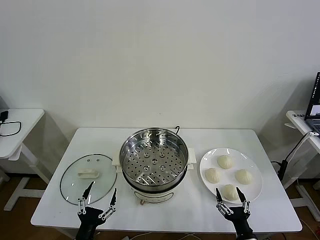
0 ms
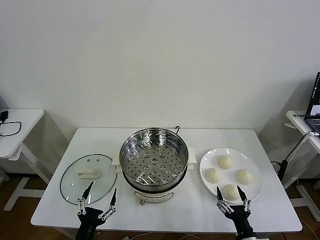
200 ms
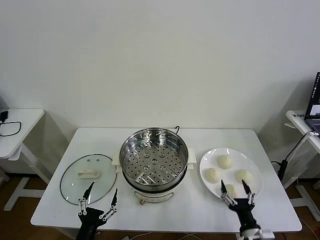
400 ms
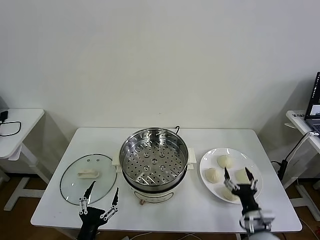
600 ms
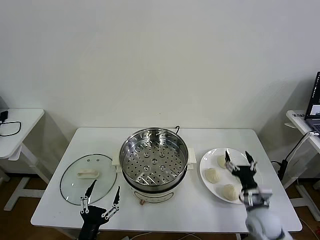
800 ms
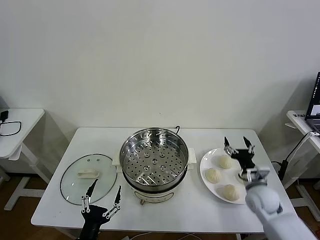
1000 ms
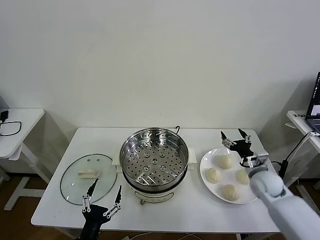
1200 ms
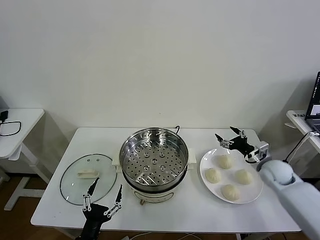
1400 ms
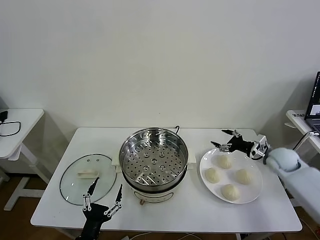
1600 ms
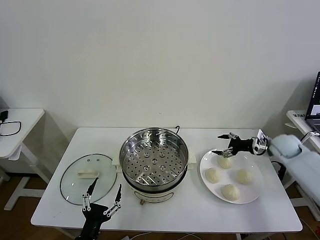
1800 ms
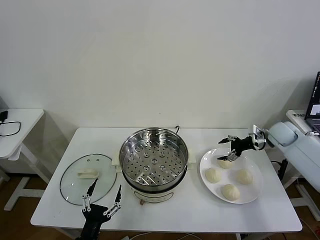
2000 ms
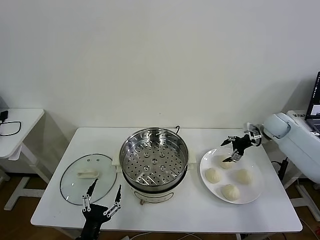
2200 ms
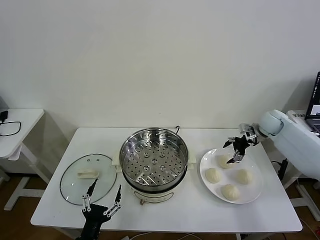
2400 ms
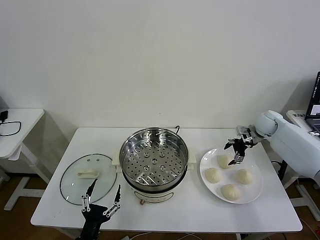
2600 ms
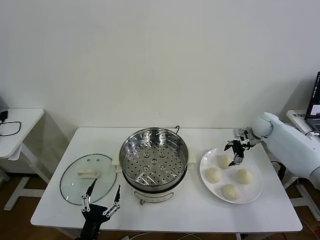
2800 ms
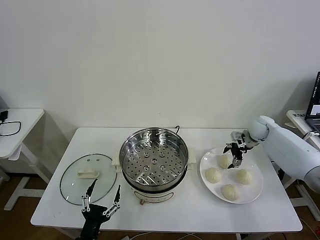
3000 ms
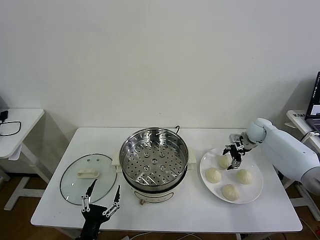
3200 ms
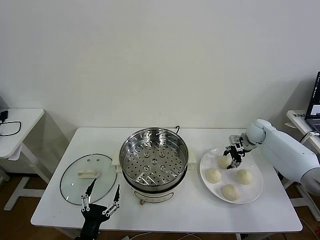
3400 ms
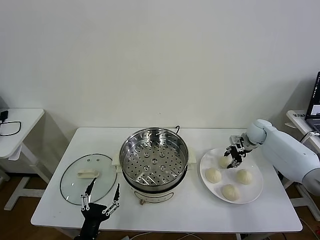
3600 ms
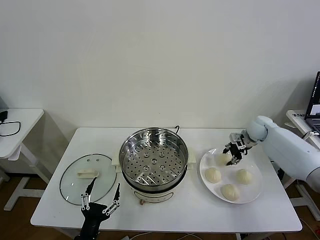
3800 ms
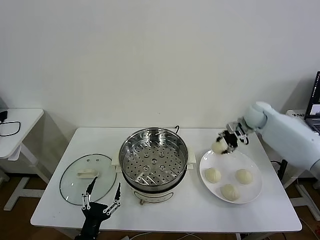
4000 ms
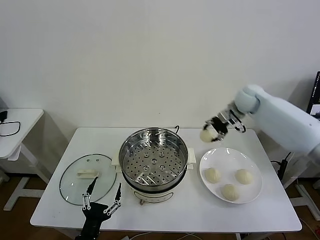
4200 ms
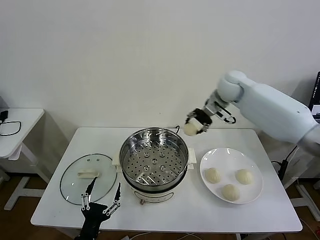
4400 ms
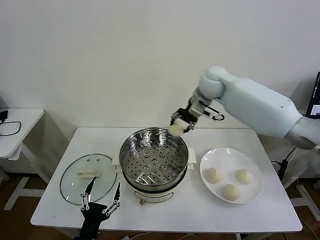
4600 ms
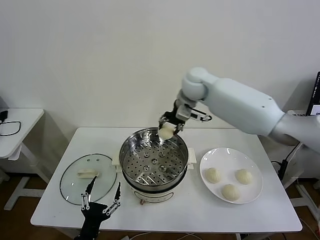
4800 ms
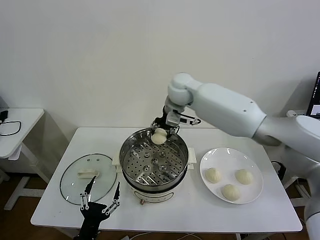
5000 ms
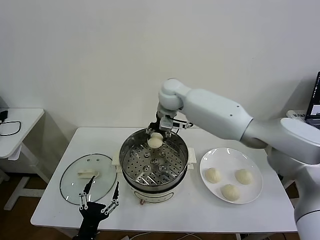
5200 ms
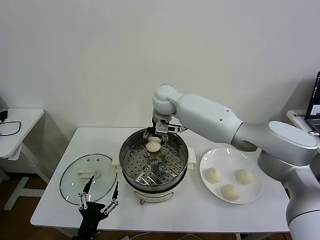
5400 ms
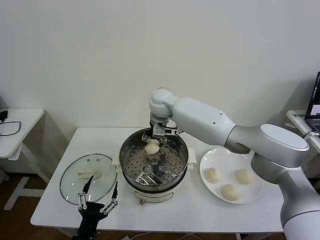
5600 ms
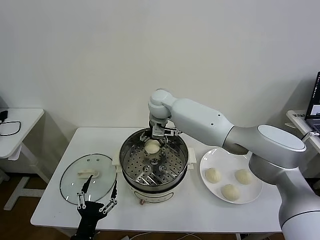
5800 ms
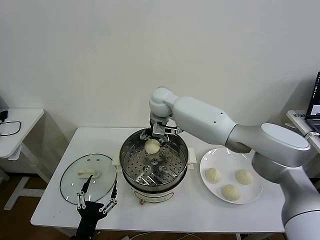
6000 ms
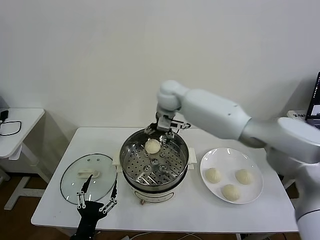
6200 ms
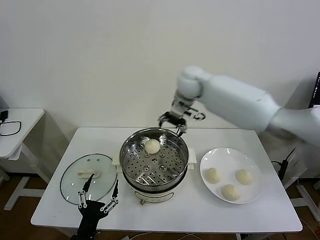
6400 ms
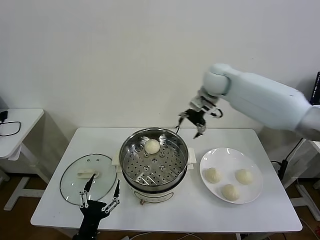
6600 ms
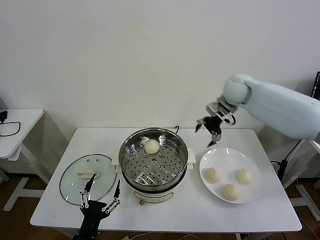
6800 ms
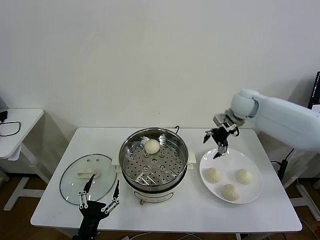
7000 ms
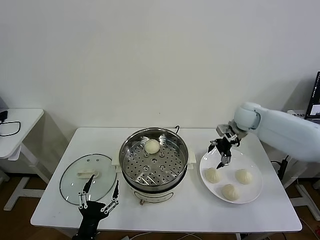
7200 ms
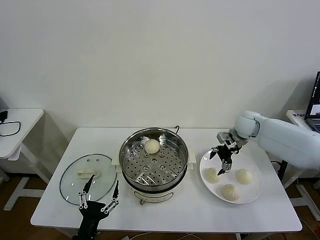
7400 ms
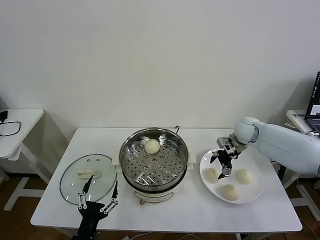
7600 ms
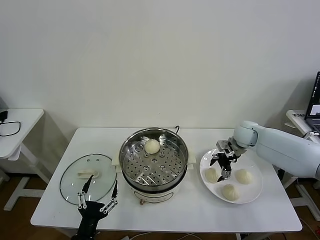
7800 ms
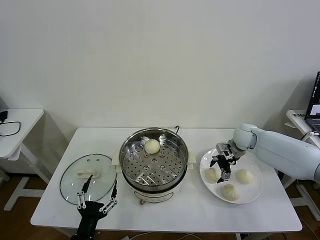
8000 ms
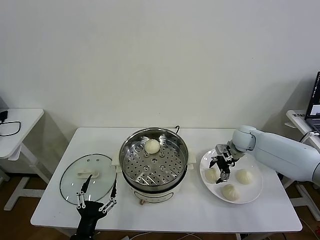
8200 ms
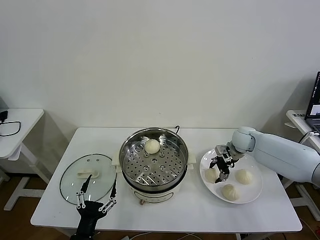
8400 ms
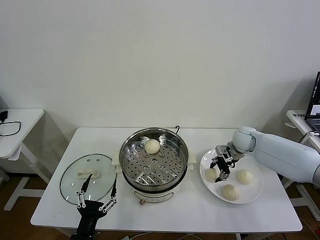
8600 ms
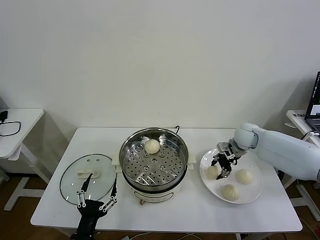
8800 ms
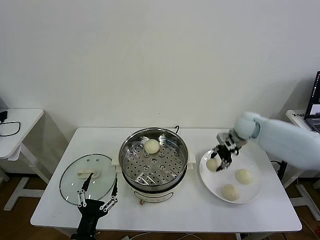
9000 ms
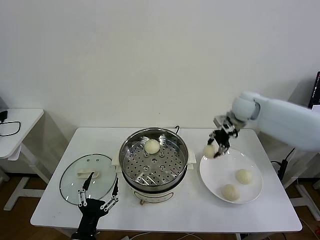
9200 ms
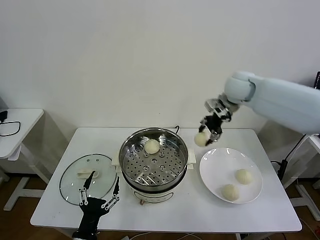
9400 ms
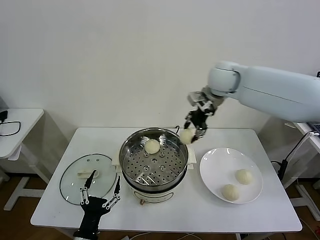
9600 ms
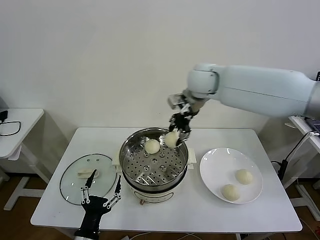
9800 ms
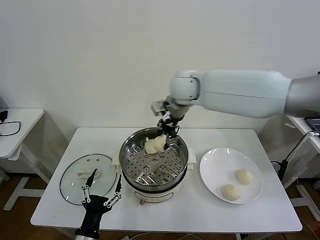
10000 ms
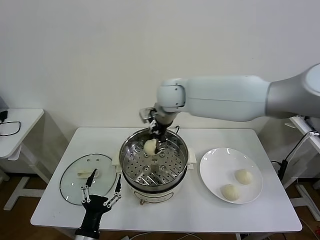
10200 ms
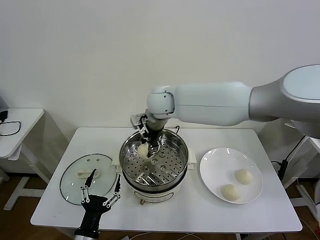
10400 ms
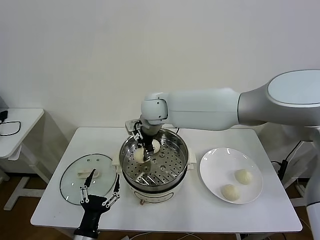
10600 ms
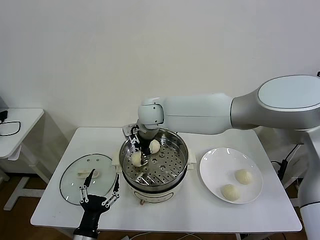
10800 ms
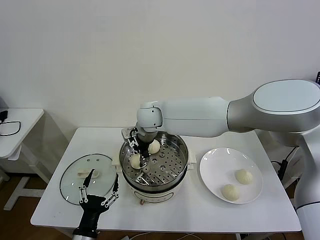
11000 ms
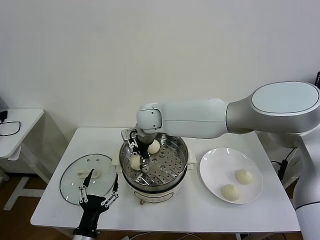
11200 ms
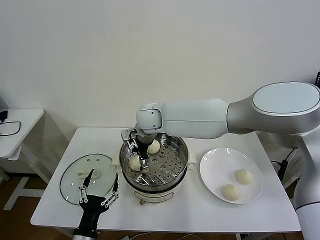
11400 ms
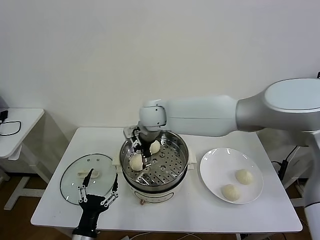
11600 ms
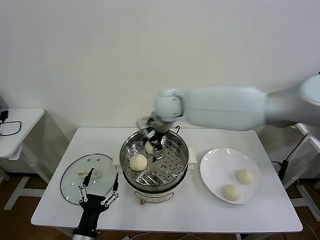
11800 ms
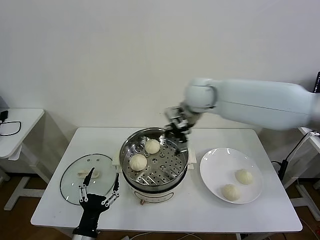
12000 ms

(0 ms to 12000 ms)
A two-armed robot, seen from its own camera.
Task of the whole recording: take steamed baozi put them in steamer then cover it.
Step, 0 ms - 3400 ms: Grasp the baozi in the plate with right gripper.
Step, 3600 ms - 6200 ms: Place the baozi on the steamer with right gripper.
Step, 6400 ms - 8600 ms: Grasp the baozi in the plate with right gripper.
Step, 8800 ms - 11600 ms: Place the baozi on the steamer with right gripper.
1600 ms - 3000 ms: The right gripper moves forward, approximately 10 cm.
3000 ms - 4400 ms: The right gripper goes some 30 cm to the left and upward, and closes up.
4400 ms - 6000 ms: The right gripper moves to the left, roughly 15 cm, and opens its fingers.
6000 ms - 7600 ms: The right gripper moves to the right and downward, about 35 cm.
7600 ms - 9000 ms: The right gripper travels upward by roughly 10 cm, and closes its fingers.
9000 ms - 10400 ms: The right gripper shifts some 30 cm to the left.
10400 ms - 12000 ms: The right gripper goes about 15 cm to the right, and opens its fingers.

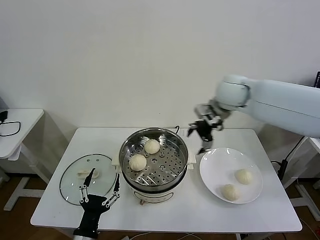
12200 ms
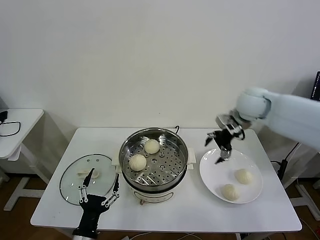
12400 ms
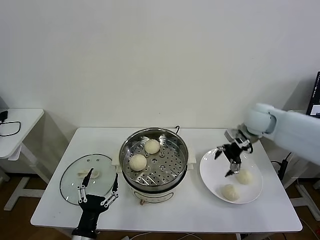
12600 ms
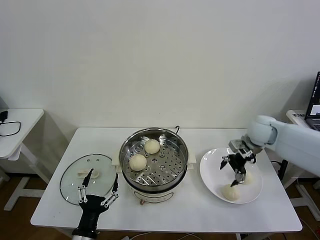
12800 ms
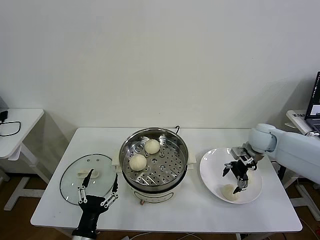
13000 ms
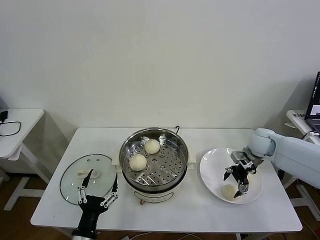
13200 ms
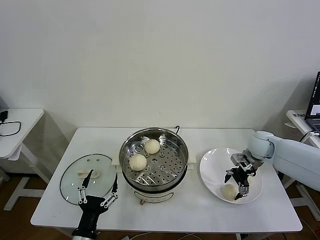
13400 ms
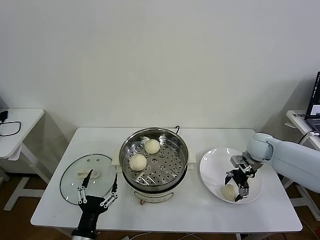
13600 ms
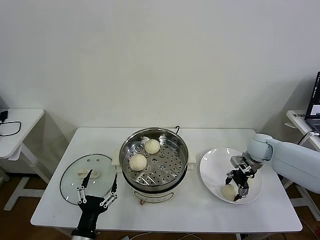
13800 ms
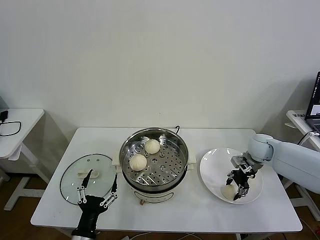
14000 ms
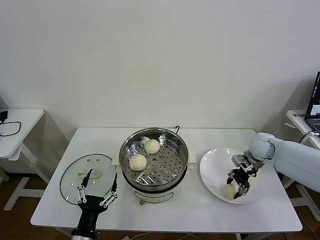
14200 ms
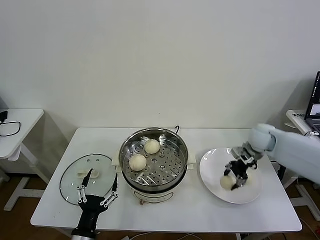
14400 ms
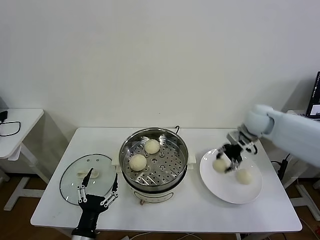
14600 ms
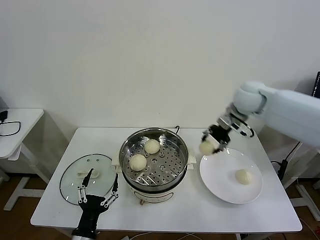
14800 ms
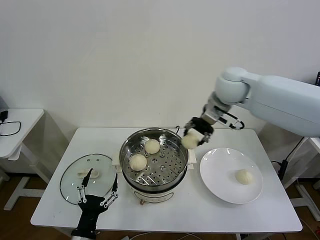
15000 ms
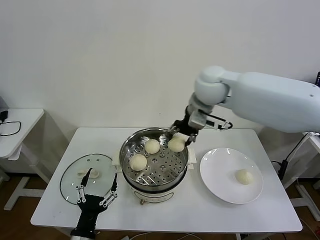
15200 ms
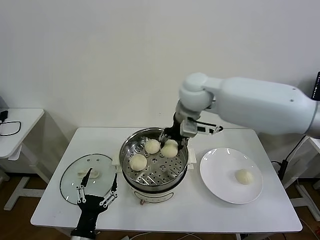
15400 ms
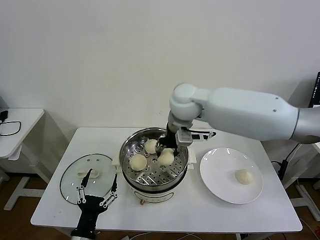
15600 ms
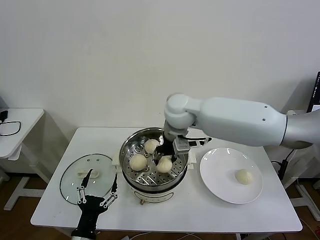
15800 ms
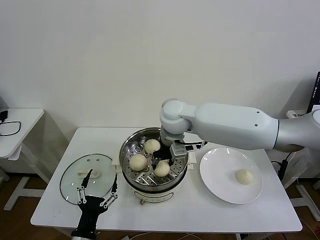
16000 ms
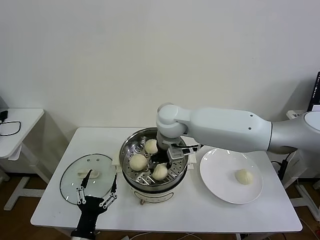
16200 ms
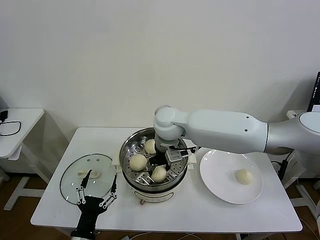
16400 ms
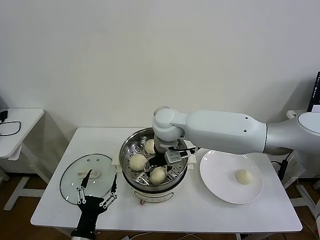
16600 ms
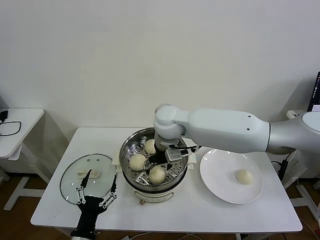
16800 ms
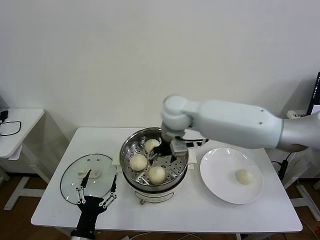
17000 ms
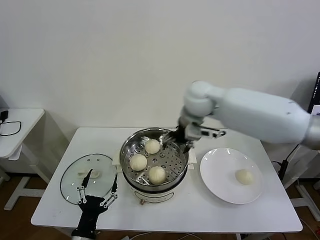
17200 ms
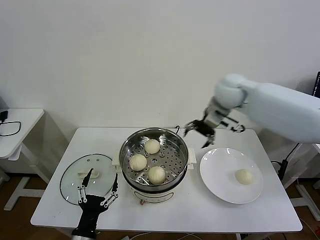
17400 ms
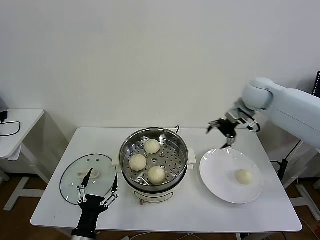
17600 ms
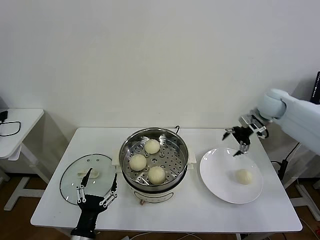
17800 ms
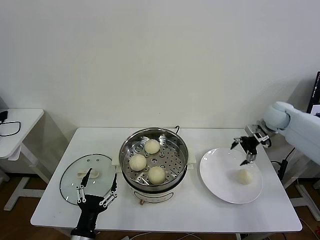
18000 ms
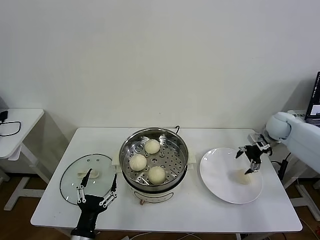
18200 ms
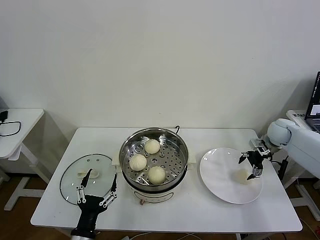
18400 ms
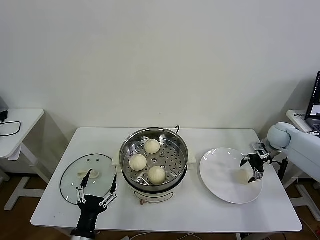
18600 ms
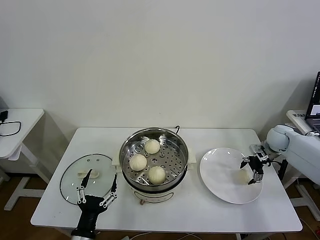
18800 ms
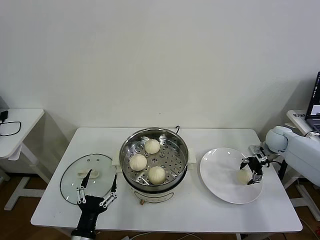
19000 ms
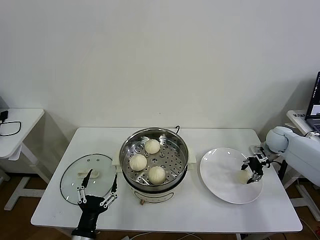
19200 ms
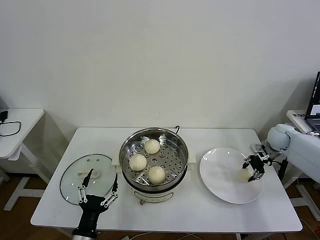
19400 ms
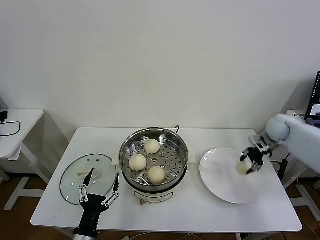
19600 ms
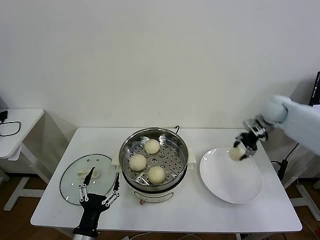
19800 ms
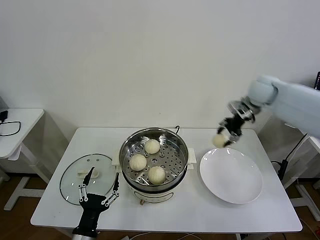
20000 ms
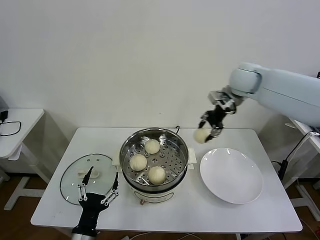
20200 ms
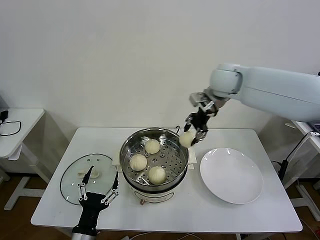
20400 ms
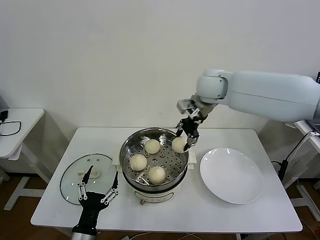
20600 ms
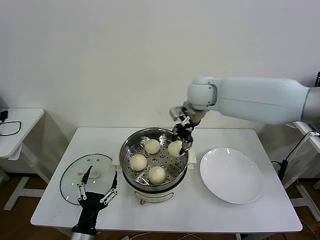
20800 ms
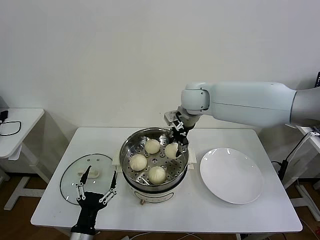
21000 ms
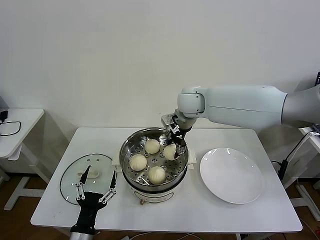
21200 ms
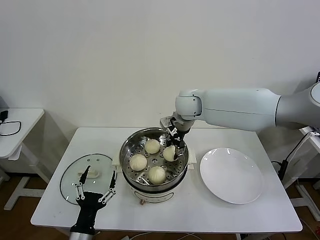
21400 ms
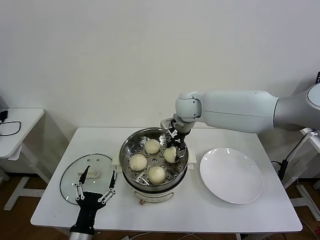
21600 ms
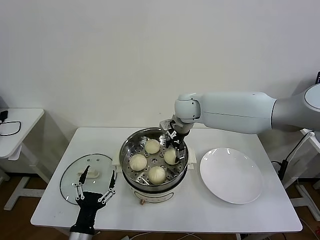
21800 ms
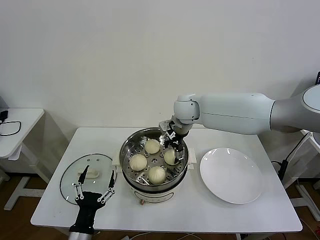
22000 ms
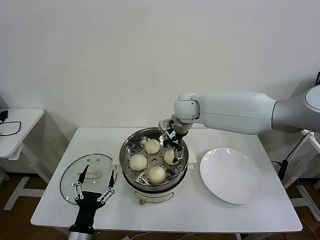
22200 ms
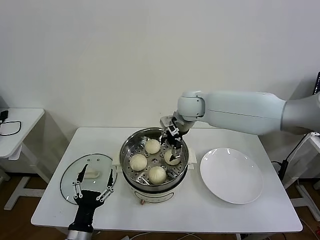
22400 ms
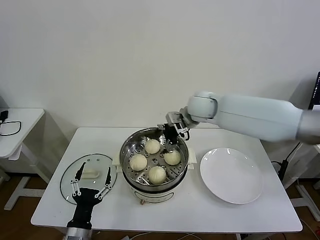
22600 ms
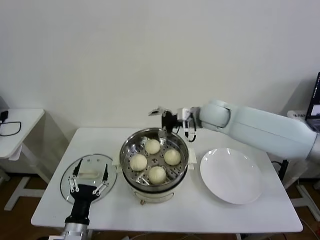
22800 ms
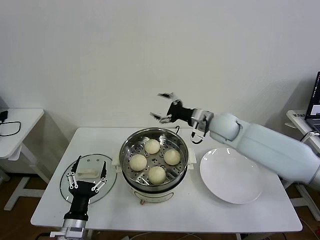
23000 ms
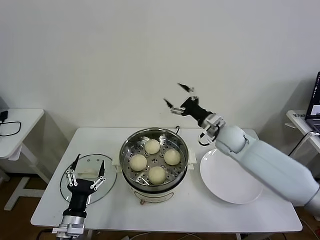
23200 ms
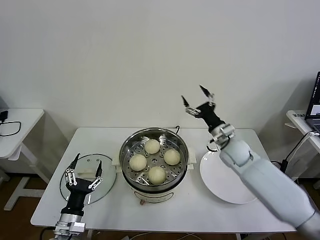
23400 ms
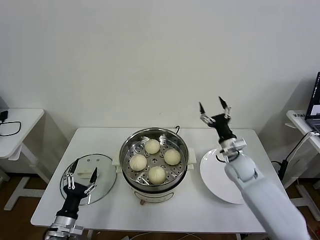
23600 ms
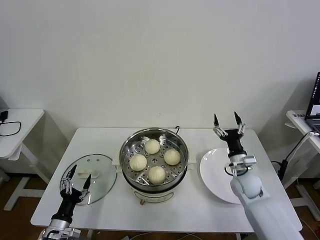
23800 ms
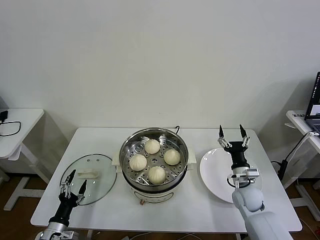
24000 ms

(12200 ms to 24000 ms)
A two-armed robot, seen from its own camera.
Task of the whole recording: take steamed baozi put them in steamer then cover it.
Step, 12200 ms - 14000 ms: Grasp the baozi in the plate with right gripper.
Step, 14400 ms - 17000 ms: Place the baozi on the steamer with right gripper.
Step, 17200 ms - 19400 ms: Grasp the baozi in the plate with right gripper.
Step, 19600 ms - 22000 ms: Place the baozi on the steamer with right gripper.
12200 ms - 13600 ms: The right gripper goes approximately 25 cm downward and to the right.
13600 ms - 15200 ms: The right gripper shifts some 35 cm to the left and upward, and closes its fingers.
15200 ms - 16600 ms: The right gripper moves downward and to the left, roughly 15 cm, and opens its fingers.
16600 ms - 18200 ms: The right gripper moves to the right, about 40 cm.
18200 ms - 19600 ms: The right gripper closes.
19600 ms - 21000 ms: The right gripper shifts roughly 35 cm to the left.
21000 ms - 22600 ms: The right gripper opens.
22600 ms - 24000 ms: The right gripper goes about 40 cm downward, to the right and backward. The left gripper is displaced to the left and downward by about 15 cm.
